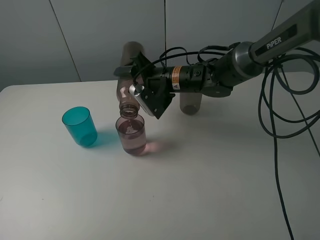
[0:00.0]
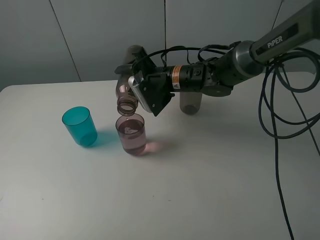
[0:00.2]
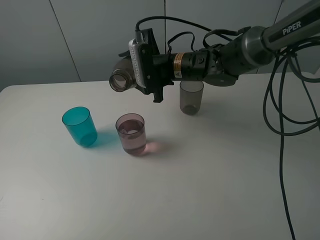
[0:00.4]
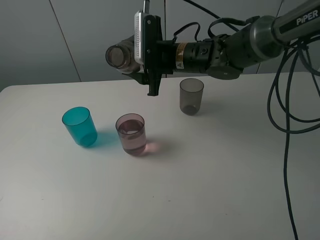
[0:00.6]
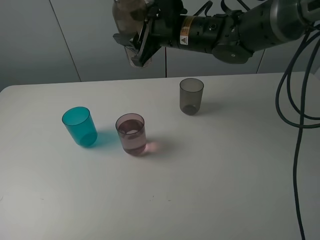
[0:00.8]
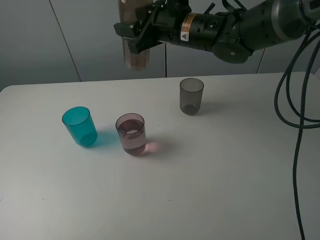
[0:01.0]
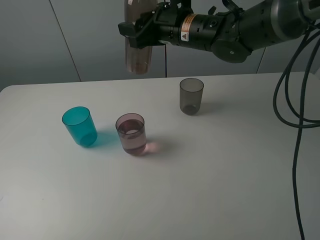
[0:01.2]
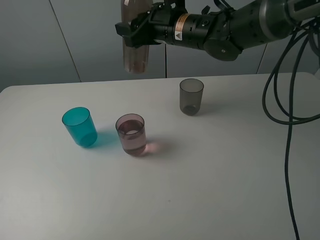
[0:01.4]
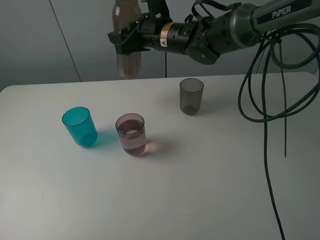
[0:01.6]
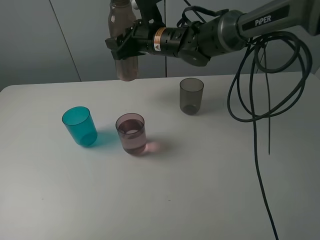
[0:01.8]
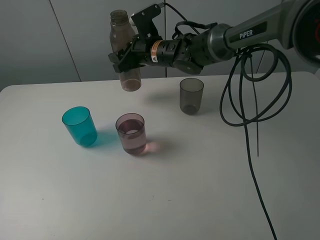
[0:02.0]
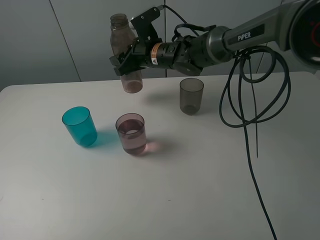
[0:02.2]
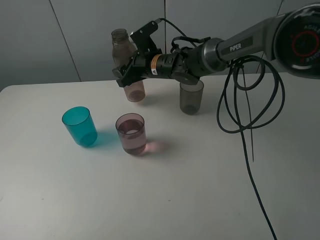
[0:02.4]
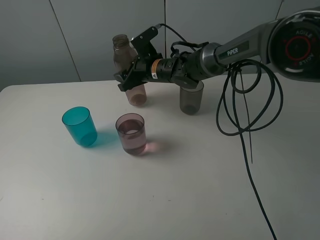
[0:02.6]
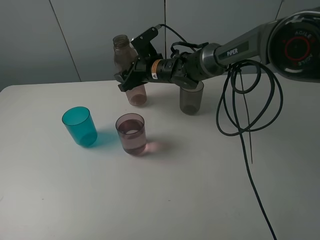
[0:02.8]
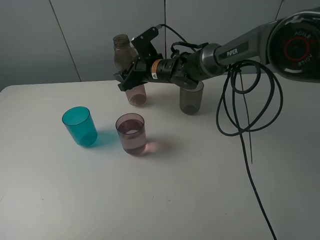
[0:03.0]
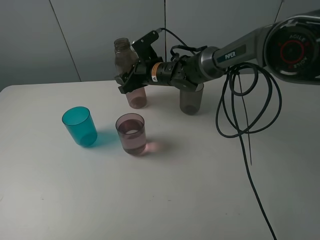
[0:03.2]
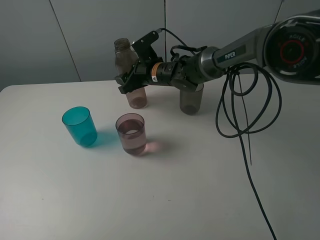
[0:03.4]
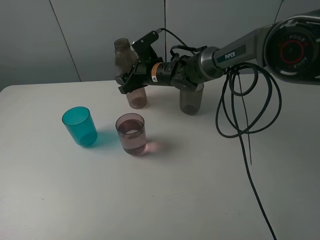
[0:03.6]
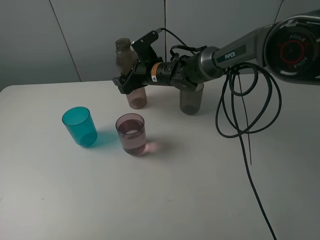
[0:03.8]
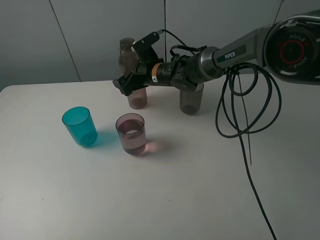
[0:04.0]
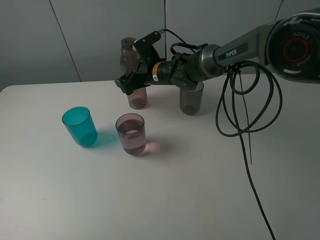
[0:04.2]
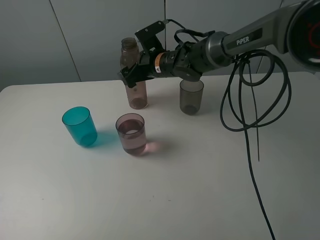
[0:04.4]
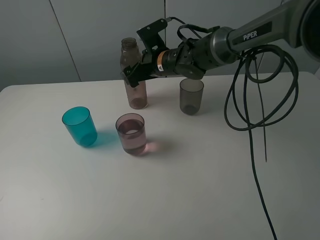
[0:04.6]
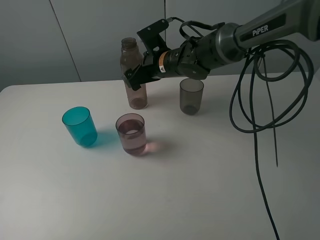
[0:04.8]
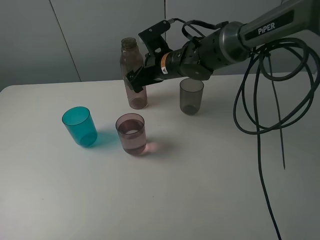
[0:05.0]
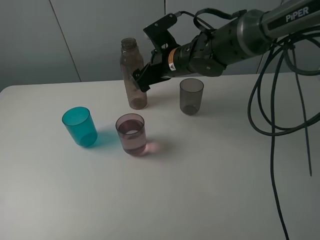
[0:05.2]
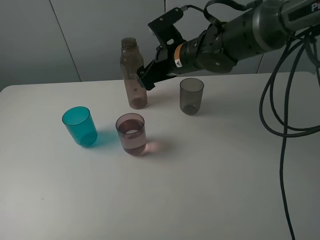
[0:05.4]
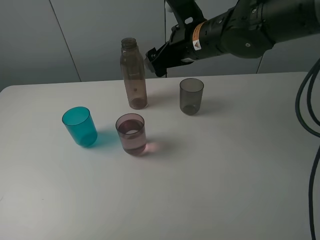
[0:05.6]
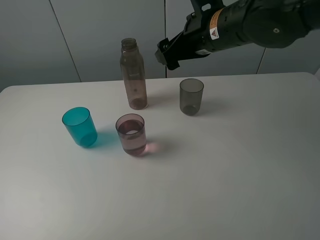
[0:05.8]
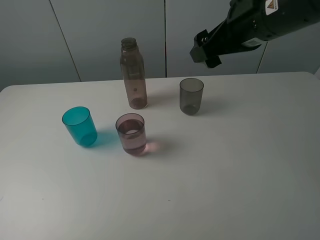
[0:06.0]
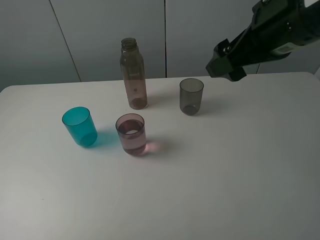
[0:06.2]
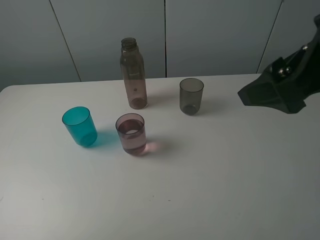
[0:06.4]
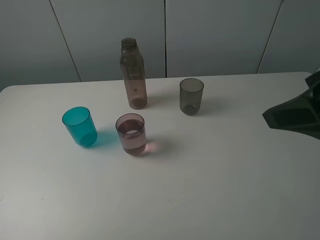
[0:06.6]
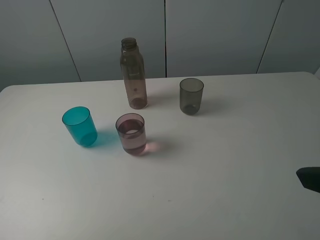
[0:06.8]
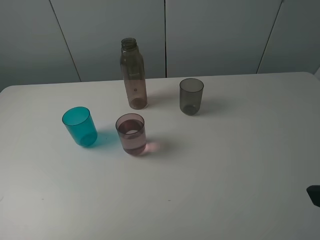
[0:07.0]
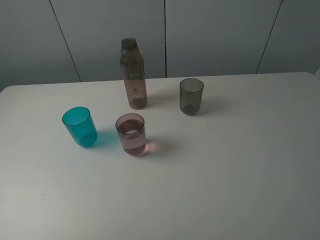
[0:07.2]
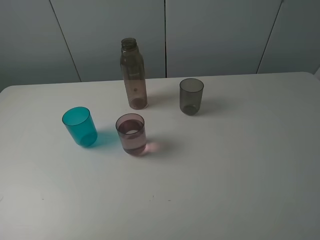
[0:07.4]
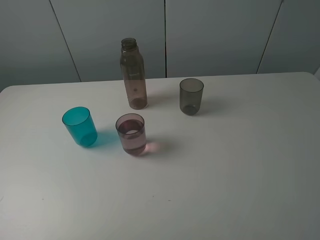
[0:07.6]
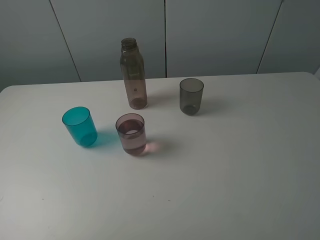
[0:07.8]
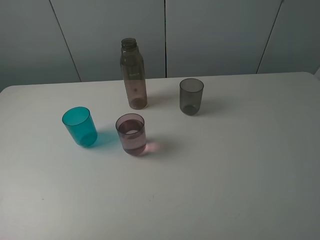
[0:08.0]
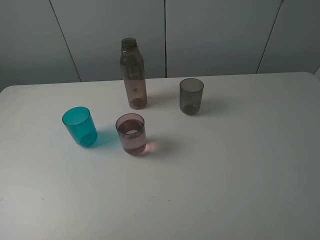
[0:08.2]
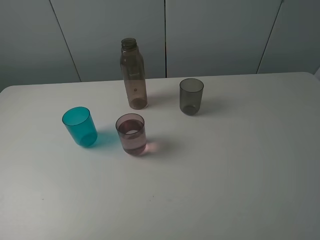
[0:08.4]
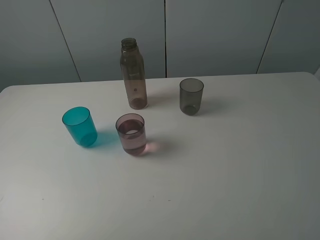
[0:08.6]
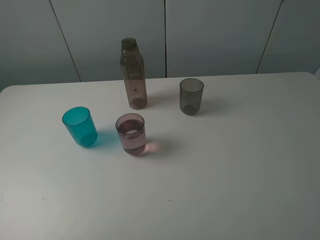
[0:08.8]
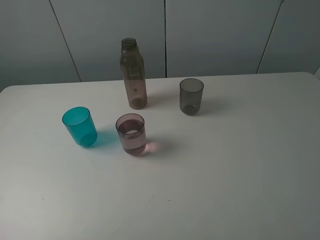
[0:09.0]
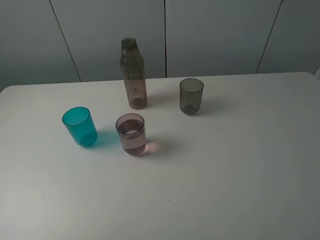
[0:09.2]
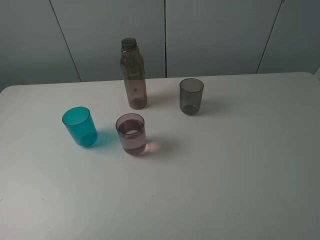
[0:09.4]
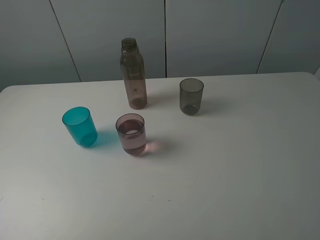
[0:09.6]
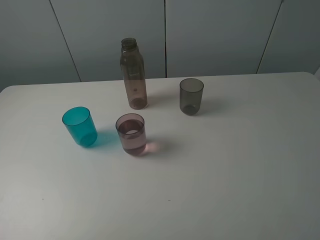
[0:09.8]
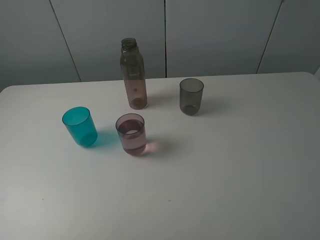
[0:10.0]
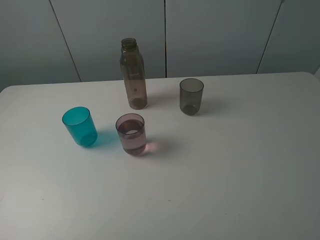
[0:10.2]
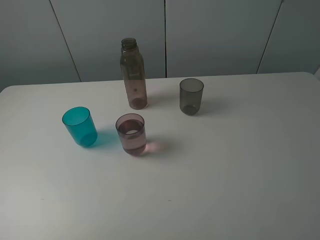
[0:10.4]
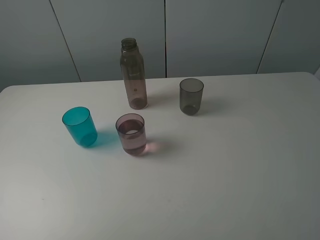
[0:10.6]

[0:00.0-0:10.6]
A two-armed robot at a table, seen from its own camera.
Task of the whole recording: pick up the bottle filled with water and pour water into the middle cup of the three cups.
Step, 0:00.0 to 0:05.4: Place the brown bottle with the right gripper.
0:00.0 to 0:01.6: The right gripper is displaced upward by roughly 10 cm.
0:01.6 to 0:03.0: The right gripper is displaced downward by some 10 cm.
0:03.0 to 0:04.6: The right gripper opens its fingers.
0:04.6 to 0:06.0: The right gripper moves backward, upward and to the right, some 25 cm.
0:06.0 to 0:07.6: The right gripper moves backward and to the right, approximately 30 cm.
0:09.0 to 0:10.6: Both grippers stay put.
